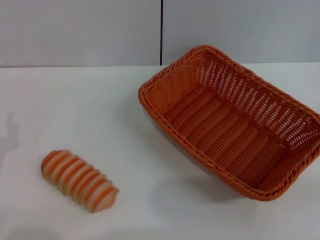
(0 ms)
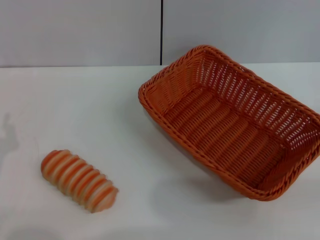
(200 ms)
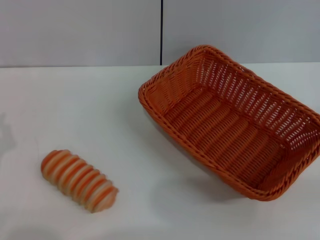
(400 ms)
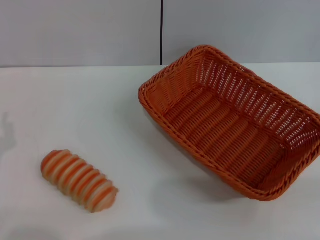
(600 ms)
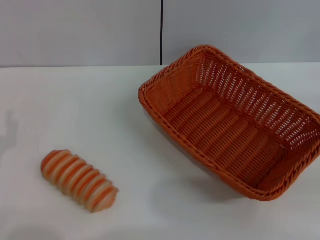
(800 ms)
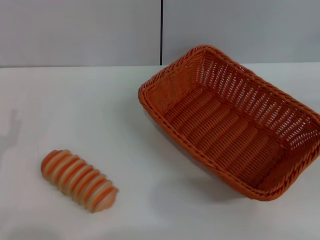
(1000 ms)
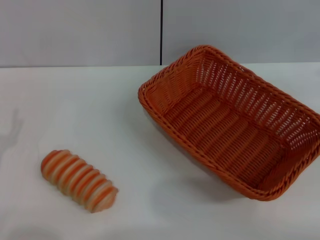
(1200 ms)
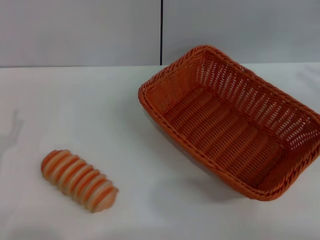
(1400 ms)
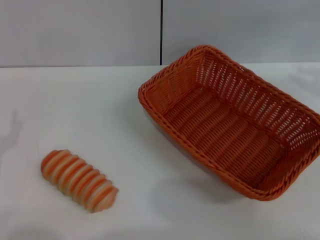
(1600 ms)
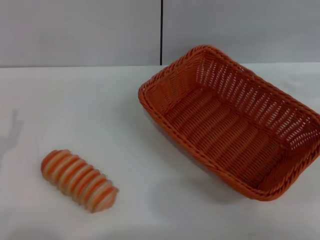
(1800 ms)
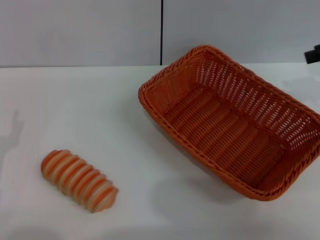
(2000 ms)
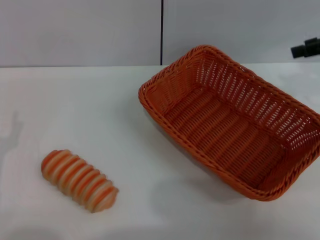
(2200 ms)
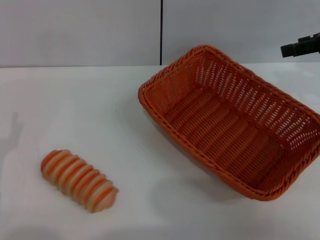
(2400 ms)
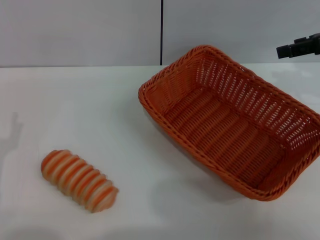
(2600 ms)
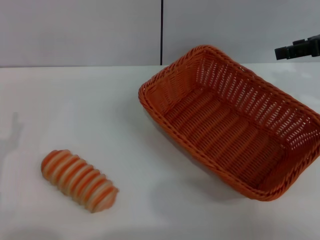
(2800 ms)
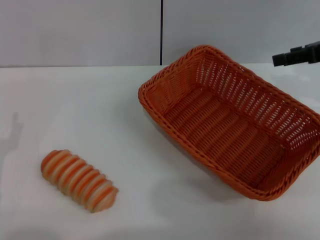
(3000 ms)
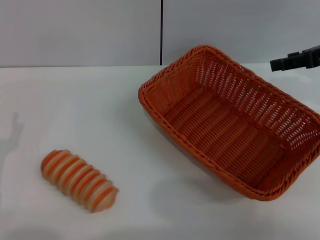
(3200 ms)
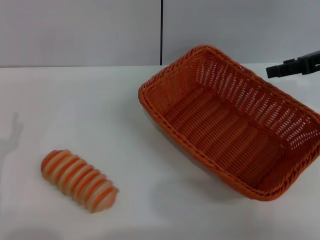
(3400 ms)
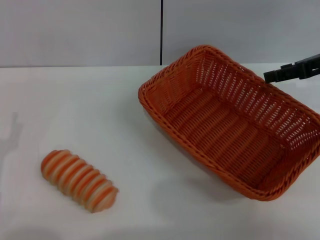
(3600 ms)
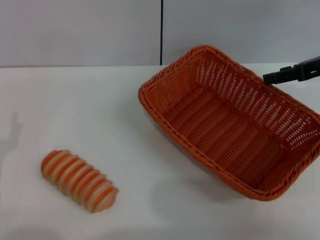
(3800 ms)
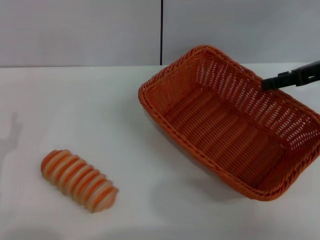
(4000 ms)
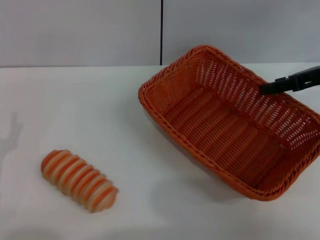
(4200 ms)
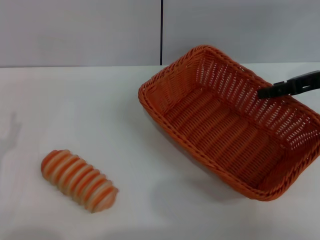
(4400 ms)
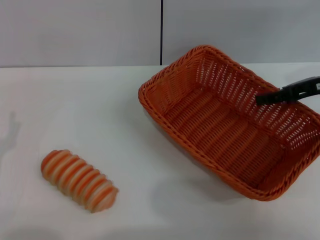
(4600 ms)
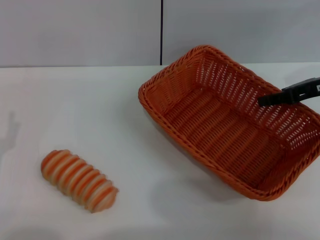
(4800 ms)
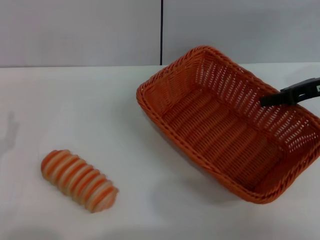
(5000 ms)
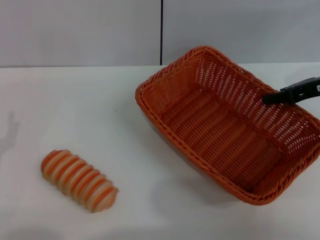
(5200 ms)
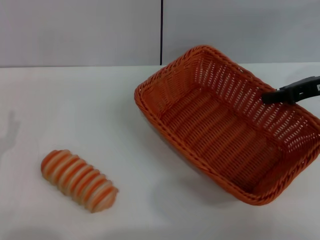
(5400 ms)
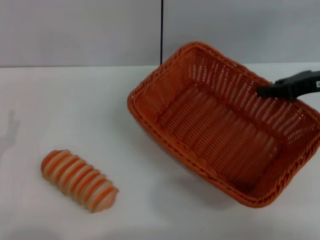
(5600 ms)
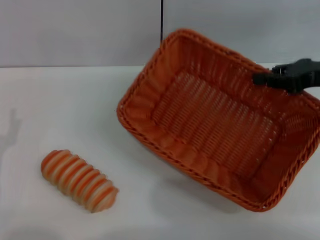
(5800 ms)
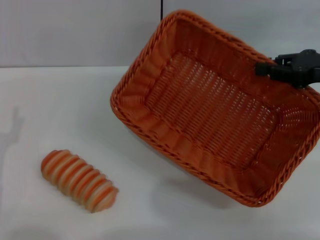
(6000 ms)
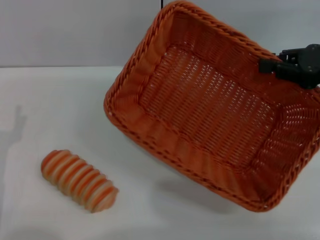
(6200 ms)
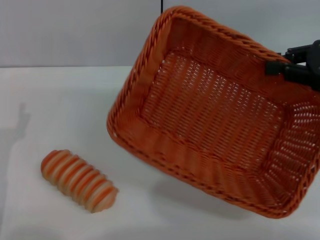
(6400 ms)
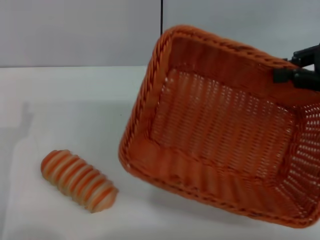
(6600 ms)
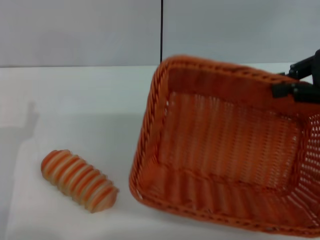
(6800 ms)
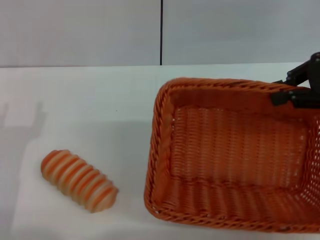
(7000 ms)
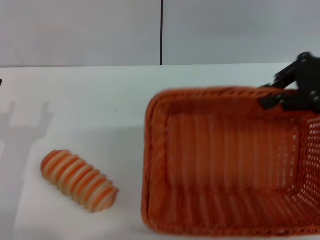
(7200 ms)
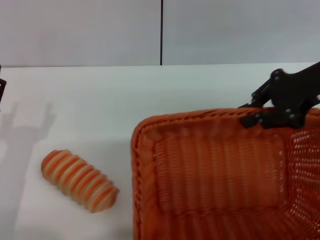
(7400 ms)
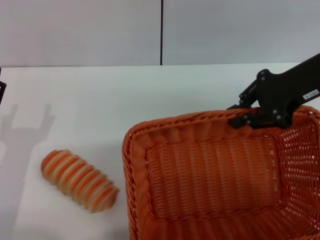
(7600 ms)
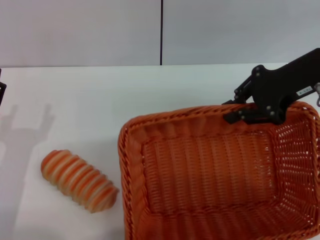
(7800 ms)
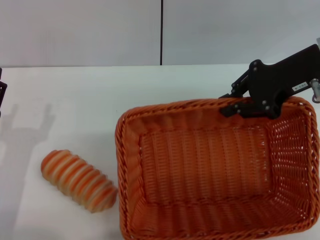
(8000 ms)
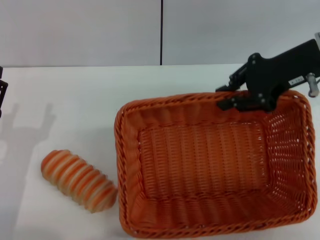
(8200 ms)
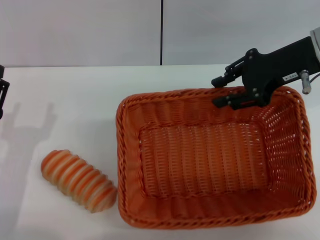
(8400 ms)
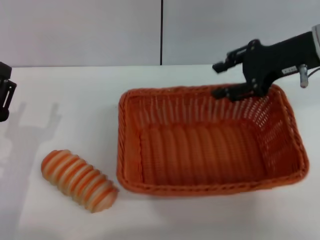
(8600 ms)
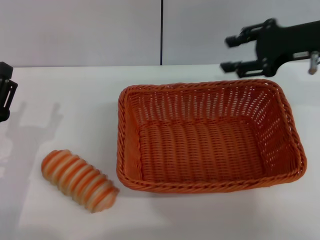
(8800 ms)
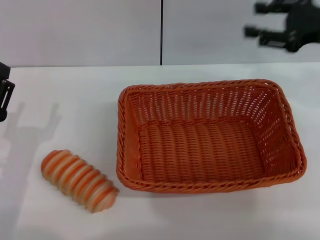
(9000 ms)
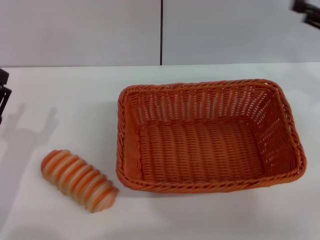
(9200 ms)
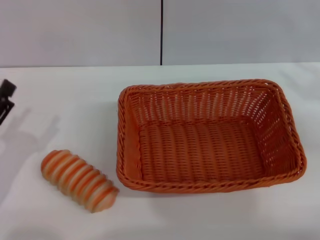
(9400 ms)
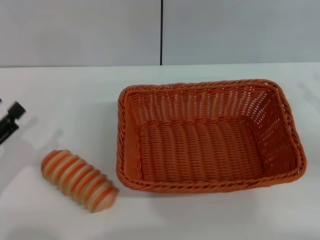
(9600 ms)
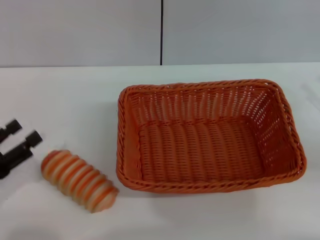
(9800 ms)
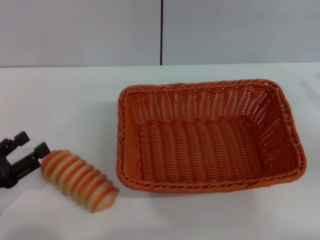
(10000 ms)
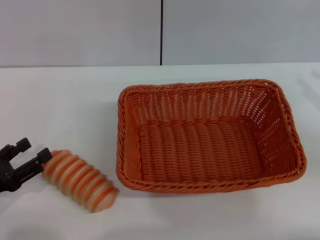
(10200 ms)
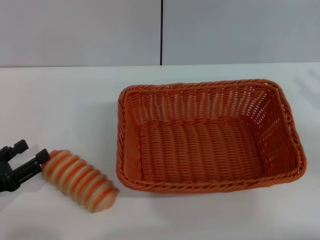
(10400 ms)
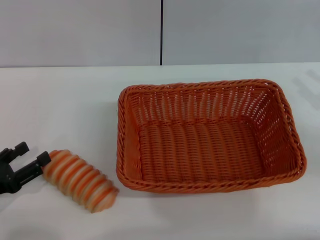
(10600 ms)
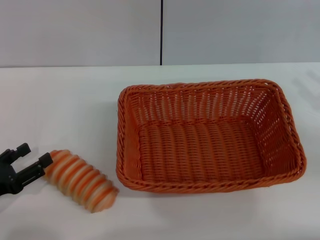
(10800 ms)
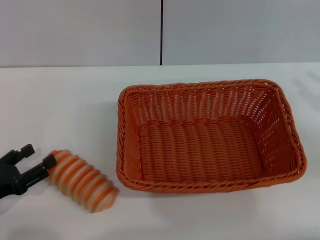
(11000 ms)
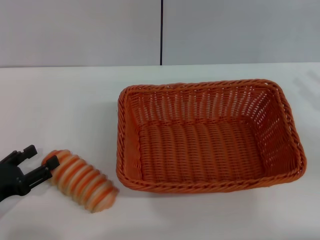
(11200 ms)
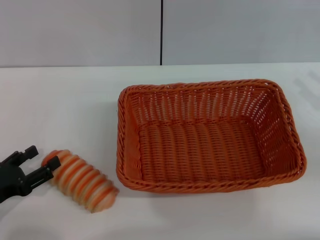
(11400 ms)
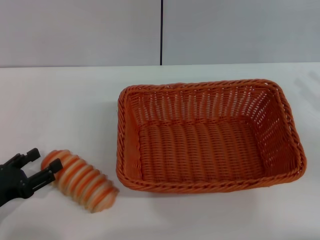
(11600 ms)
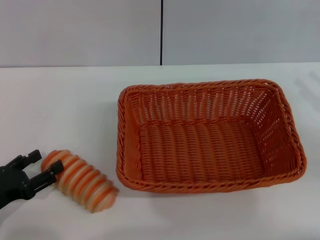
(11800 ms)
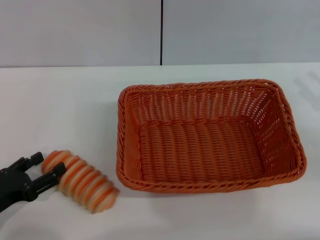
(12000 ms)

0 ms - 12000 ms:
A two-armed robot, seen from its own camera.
Step, 0 ms - 5800 ms: Pick up the light basket with the right gripper.
Step, 6000 ms - 8600 ms: Place the light basket in the center of view with the right gripper.
1600 ms - 3000 ms: The right gripper shifts about 10 cm to the left, downward and forward, and opens its fingers.
3000 ms - 4400 ms: The right gripper ends up approximately 5 cm from where it was.
4400 ms - 6000 ms: The right gripper closes its fingers.
6000 ms - 7600 ms: The right gripper goes some 5 cm to the left.
7600 ms - 9000 ms: The right gripper is displaced to the right by roughly 5 cm, and opens its fingers.
9000 ms - 10400 ms: The right gripper goes roughly 15 cm backward, to the right and downward, while the left gripper heads to the left, covering about 5 cm.
10400 ms - 12000 ms: The grippers move only a little.

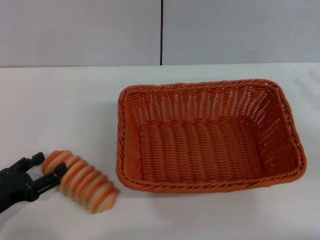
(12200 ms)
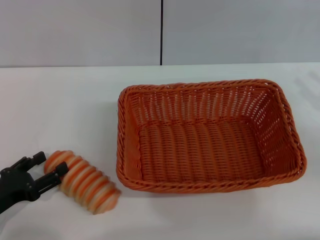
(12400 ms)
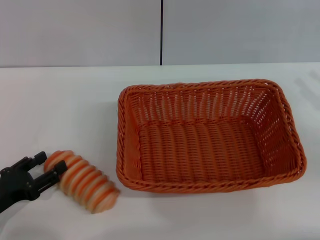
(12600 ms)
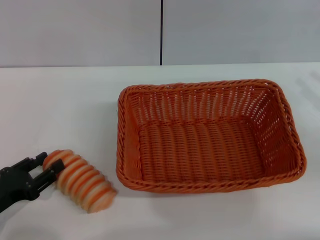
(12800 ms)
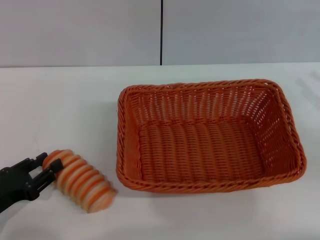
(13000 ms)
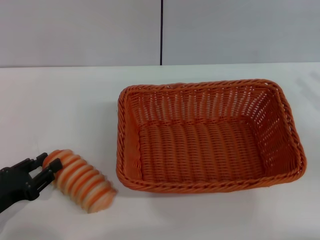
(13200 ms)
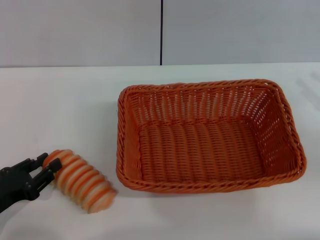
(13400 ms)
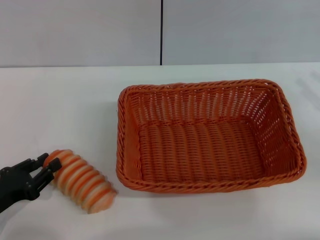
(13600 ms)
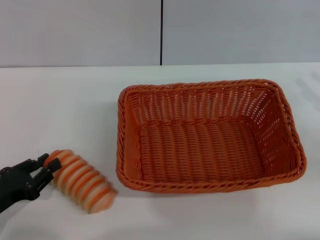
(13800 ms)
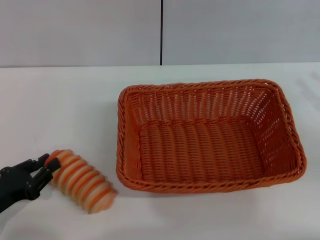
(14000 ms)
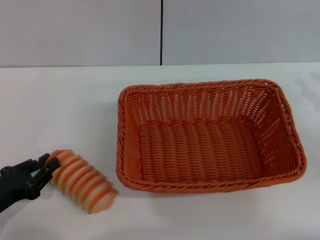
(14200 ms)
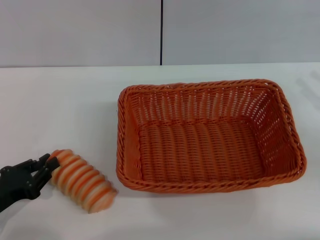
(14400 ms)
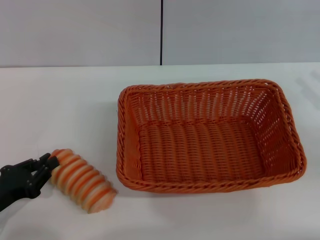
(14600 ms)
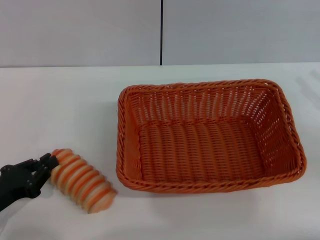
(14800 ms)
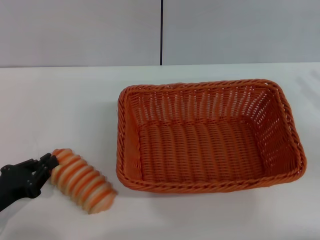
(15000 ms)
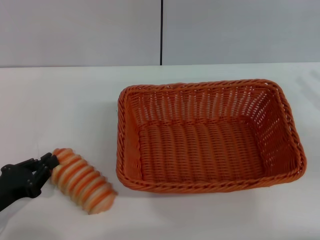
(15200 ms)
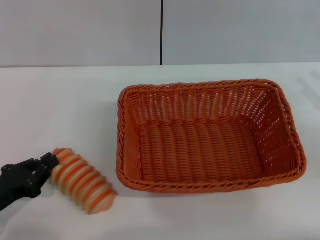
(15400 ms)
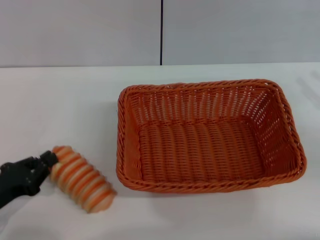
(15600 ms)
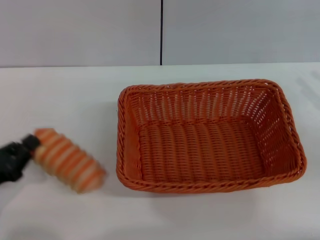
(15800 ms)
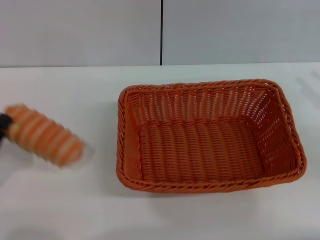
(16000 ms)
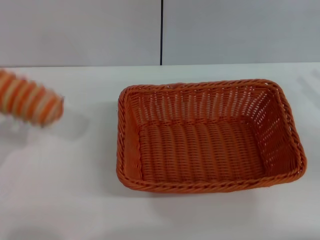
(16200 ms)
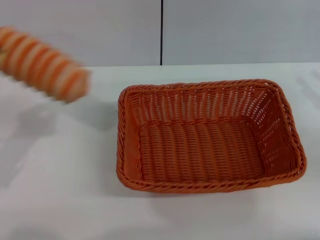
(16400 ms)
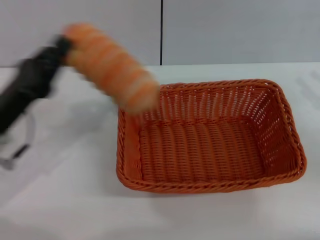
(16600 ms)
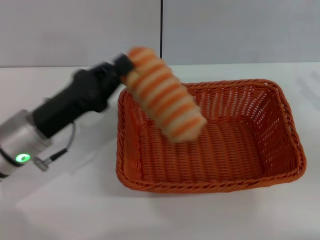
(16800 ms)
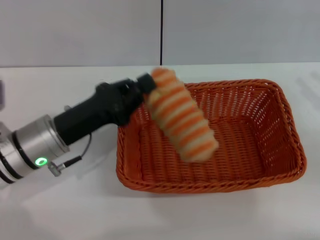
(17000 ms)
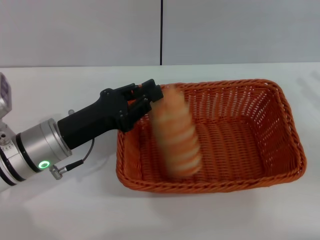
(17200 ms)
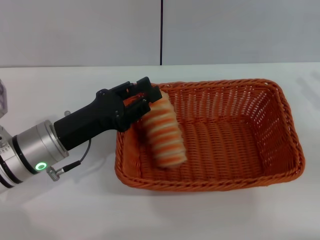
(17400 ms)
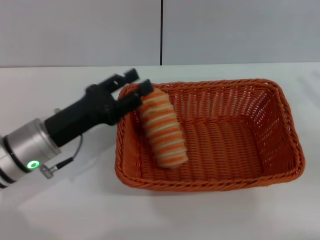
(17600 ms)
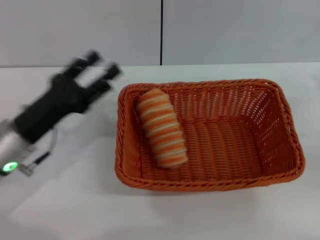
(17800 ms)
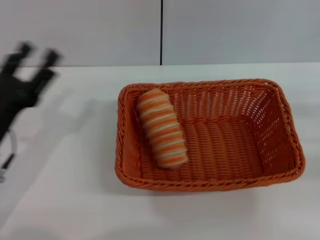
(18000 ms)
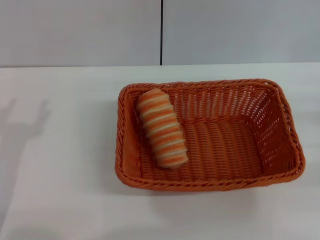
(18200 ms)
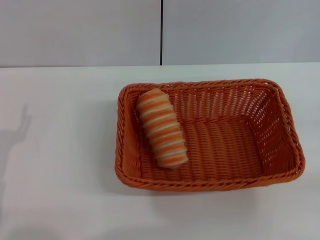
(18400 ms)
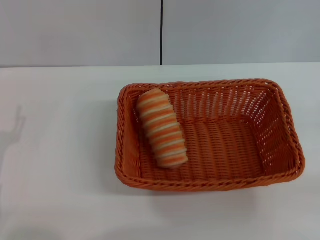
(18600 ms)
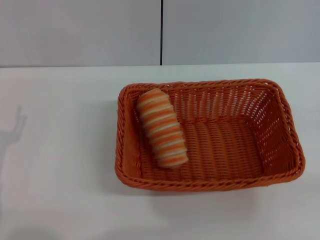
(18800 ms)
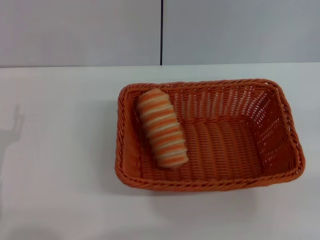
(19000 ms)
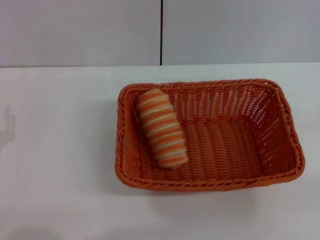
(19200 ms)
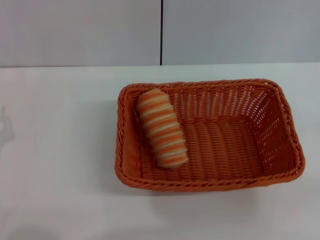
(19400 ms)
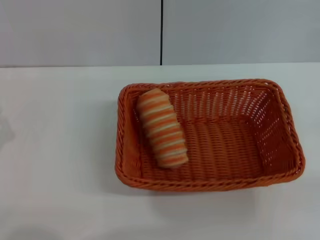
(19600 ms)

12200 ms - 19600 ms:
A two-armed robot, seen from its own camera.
Step, 12200 ms - 15800 ms: Pick up the long bread with the left gripper.
Step, 16000 ms - 17600 ms: Place the long bread into the light basket with the left gripper.
12200 ms - 13600 ms: The left gripper closes.
13600 ms - 15200 ms: Both grippers stay about where they are.
15200 ms - 16600 ms: The left gripper is displaced forward, upward and to the right by about 15 cm.
16600 ms - 18200 ms: The right gripper goes about 5 cm downward, while the left gripper moves backward, approximately 5 cm, reaches about 5 cm to the right, then returns, and opens up.

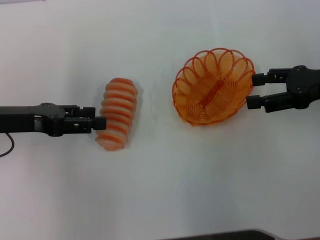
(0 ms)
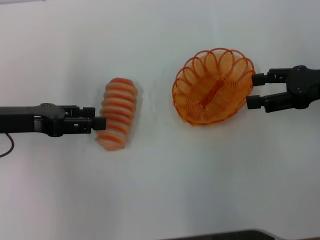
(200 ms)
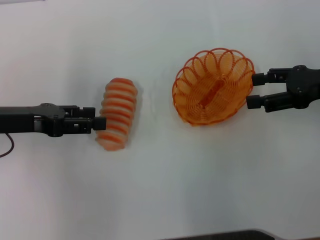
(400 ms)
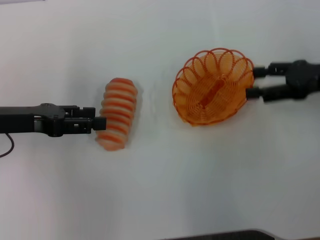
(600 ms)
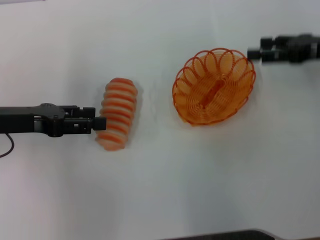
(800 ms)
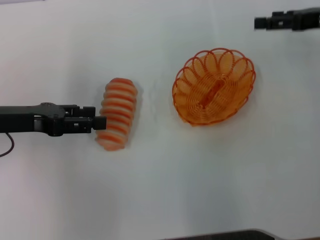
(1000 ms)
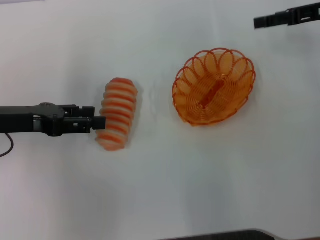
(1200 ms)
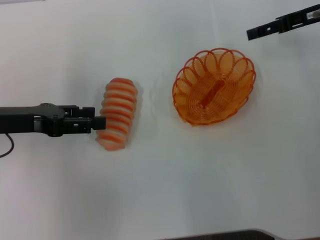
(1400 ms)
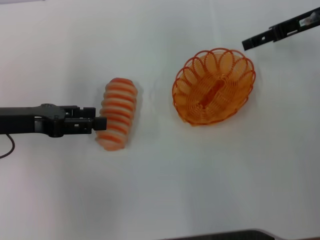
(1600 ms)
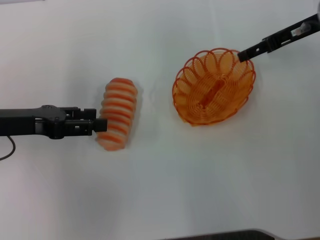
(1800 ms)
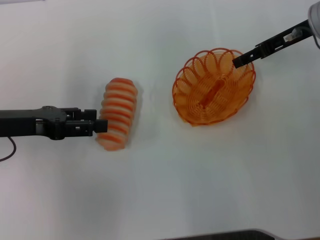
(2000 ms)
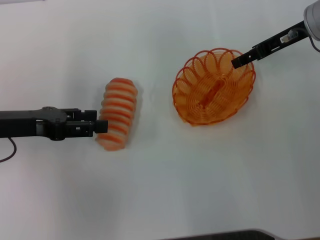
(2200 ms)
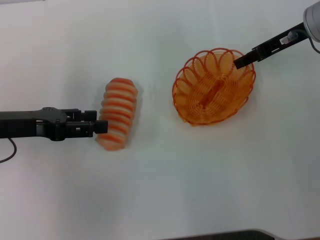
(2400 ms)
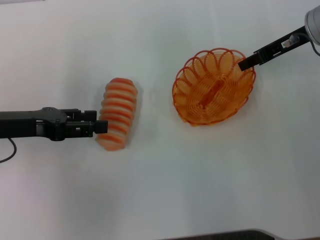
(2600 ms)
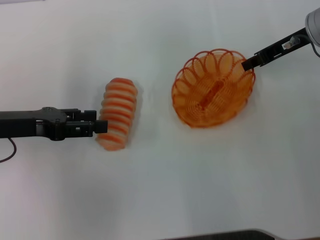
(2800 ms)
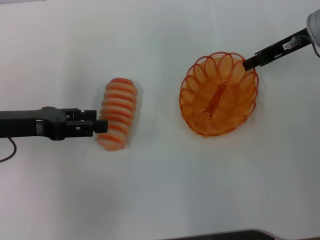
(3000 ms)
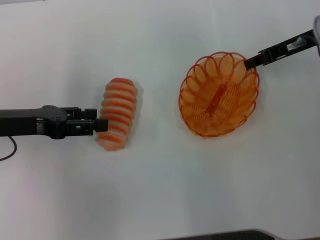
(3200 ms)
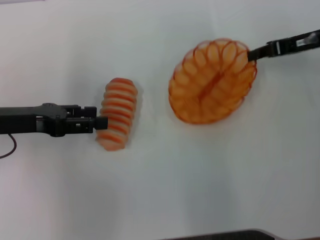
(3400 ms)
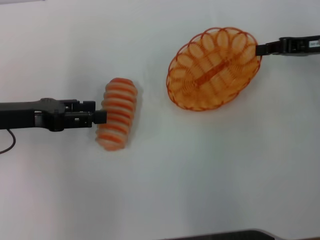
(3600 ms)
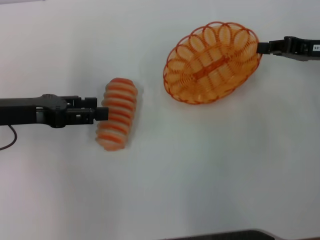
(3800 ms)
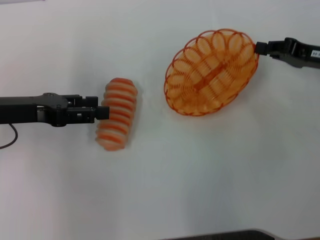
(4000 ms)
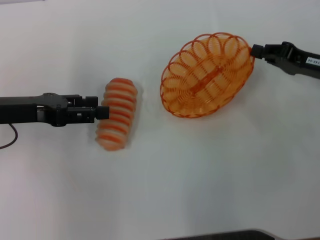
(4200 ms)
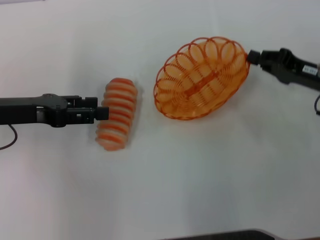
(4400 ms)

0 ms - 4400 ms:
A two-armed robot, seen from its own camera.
Step, 0 ms - 3600 ms: Pick up the basket with the right gripper.
0 ms - 1400 ms: The right gripper travels forward by about 10 cm.
1400 ms - 3000 ms: The right gripper closes up.
3000 ms - 4400 ms: The right gripper shifts roughly 15 cm backward and downward.
